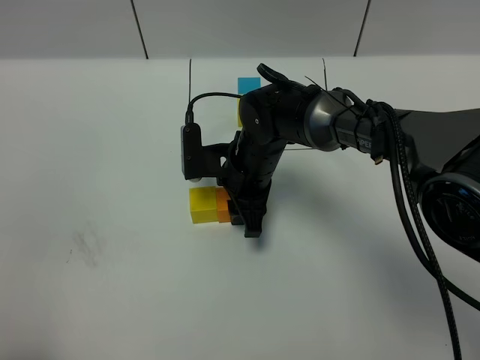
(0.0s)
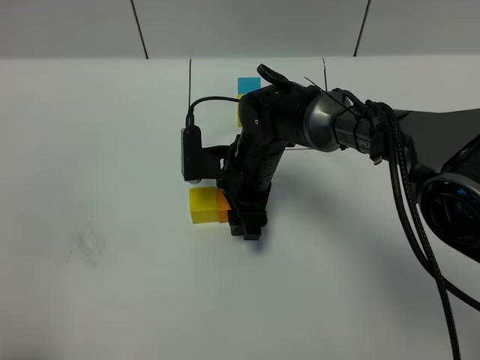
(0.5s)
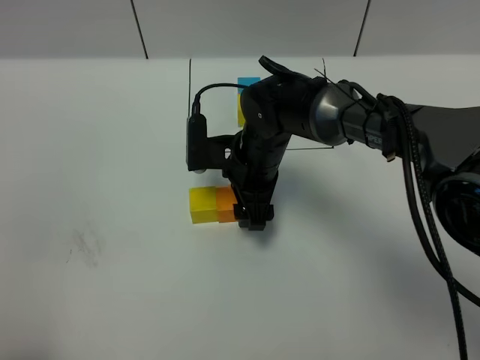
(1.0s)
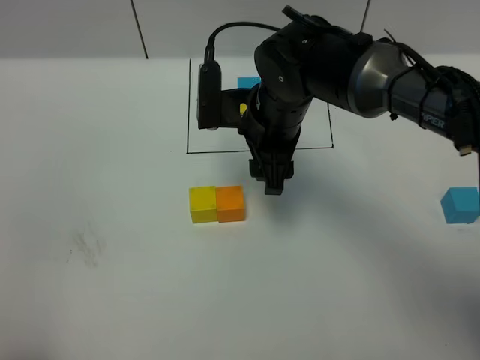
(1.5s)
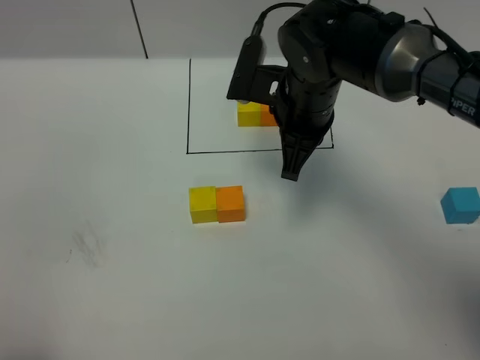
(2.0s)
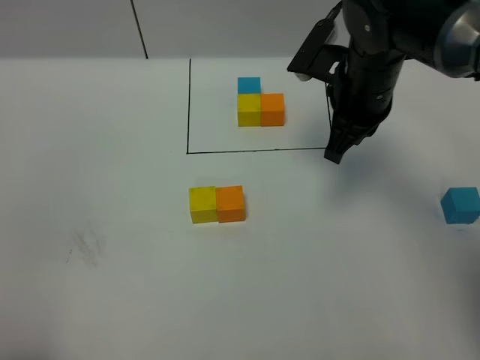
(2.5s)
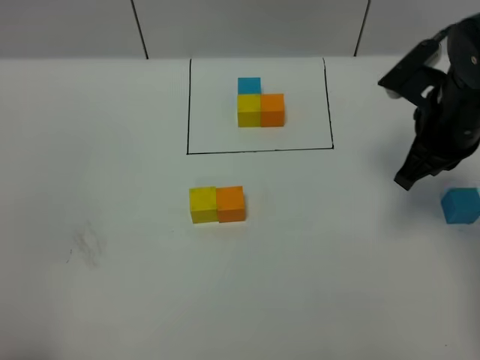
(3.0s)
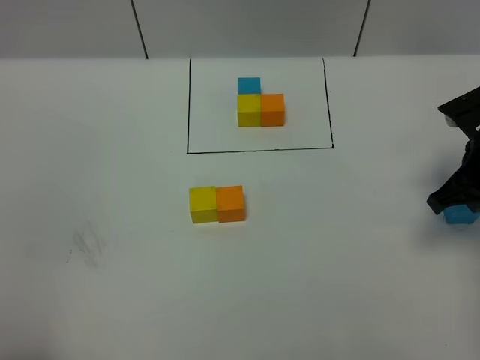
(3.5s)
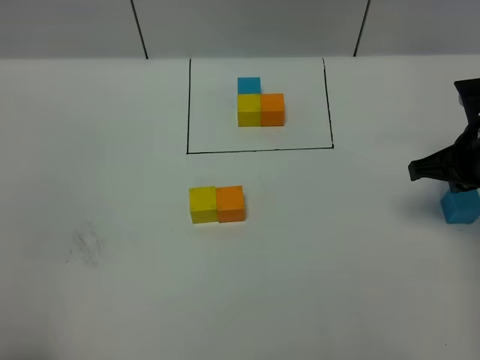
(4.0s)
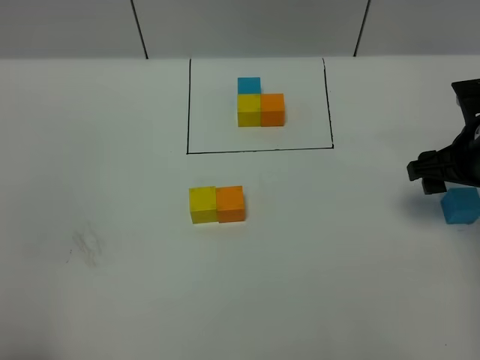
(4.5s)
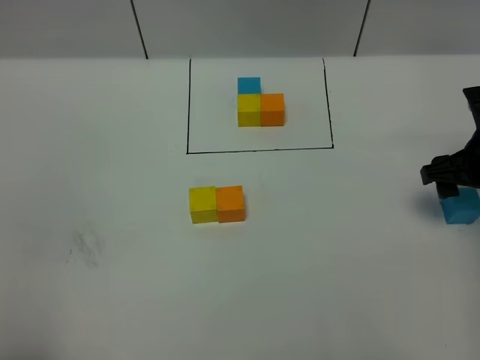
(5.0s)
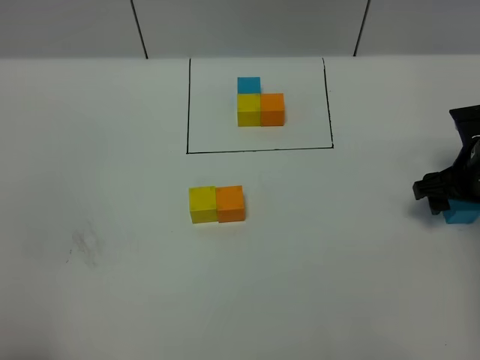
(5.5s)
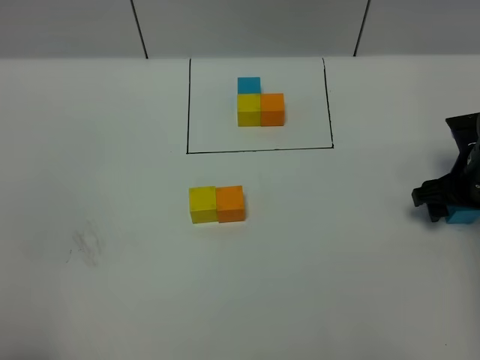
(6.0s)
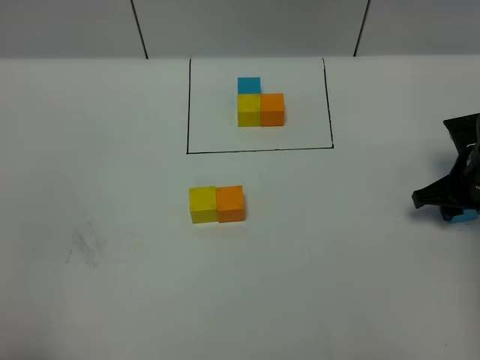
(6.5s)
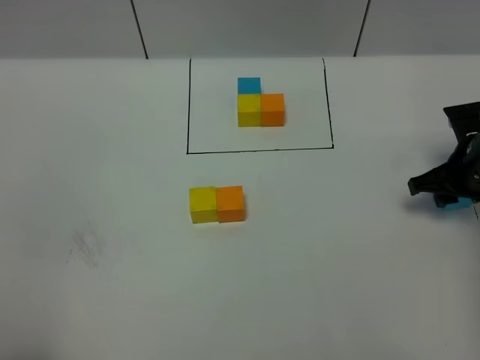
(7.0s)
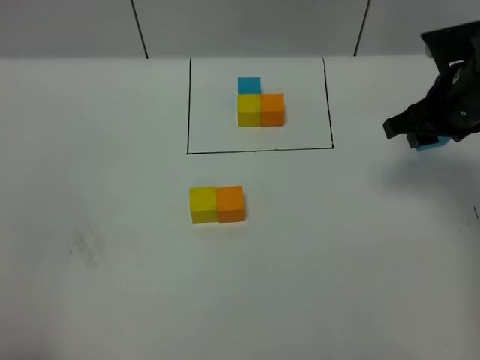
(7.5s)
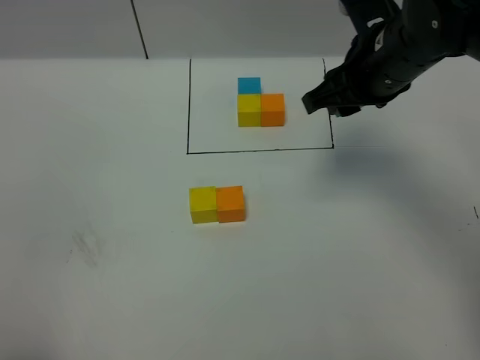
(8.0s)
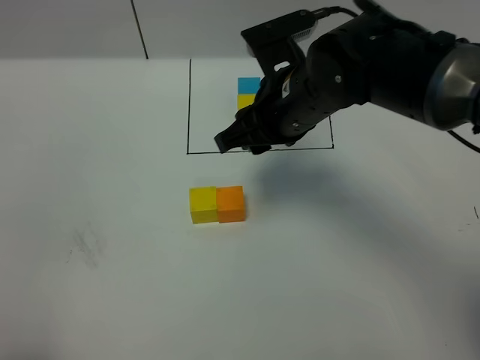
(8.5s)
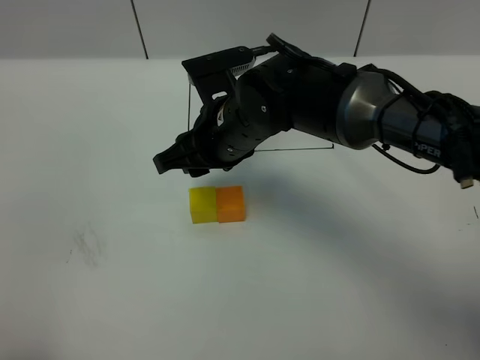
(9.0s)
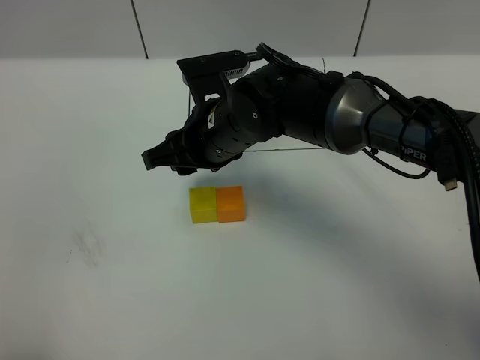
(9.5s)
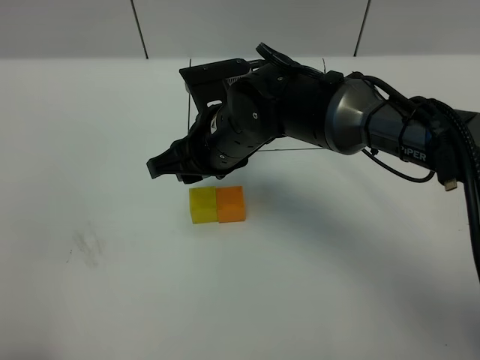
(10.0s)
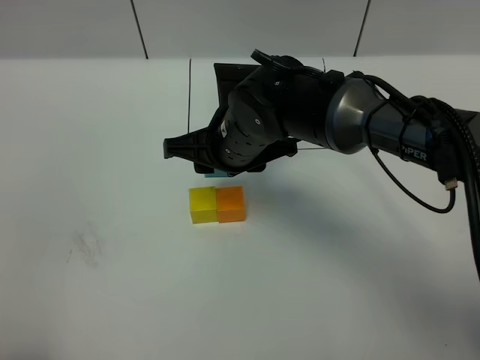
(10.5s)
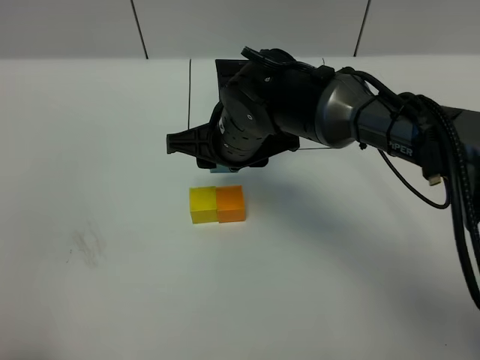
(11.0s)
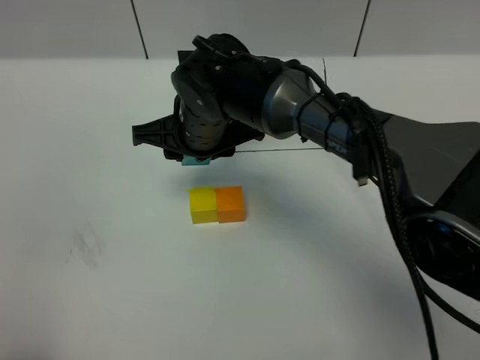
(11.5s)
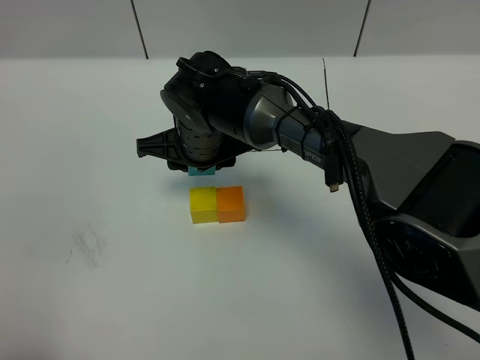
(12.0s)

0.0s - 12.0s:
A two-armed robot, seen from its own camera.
Task of the whole recording: According to the building block template in front, assemble the scattered blocks together.
0.0s - 2.0s: The right gripper shifts roughly 15 cm upward and to the right, and closes.
2.0s - 4.0s: The right gripper goes approximately 20 cm to the right.
4.0s - 6.0s: The right gripper heads downward, covering some 5 cm, and opens its fingers.
6.0s - 8.0s: The right gripper heads upward and to the left, covering some 25 cm, and closes its fingers.
8.0s - 10.0s: The right gripper moves to the left and downward, roughly 20 cm.
10.0s - 12.0s: The right gripper ends up about 5 cm from where it was.

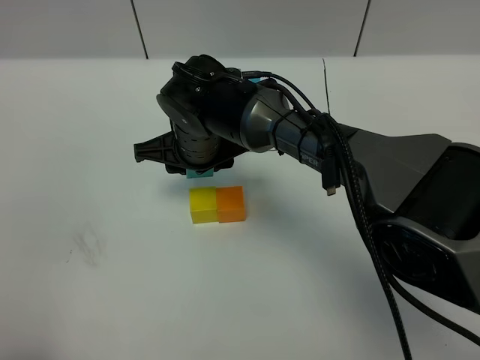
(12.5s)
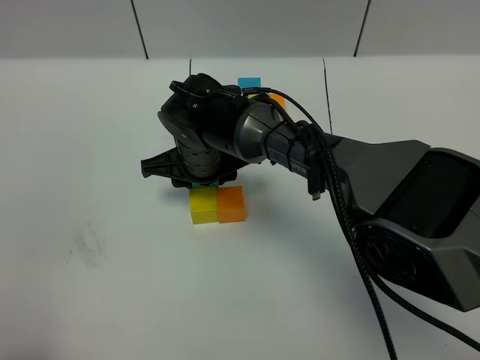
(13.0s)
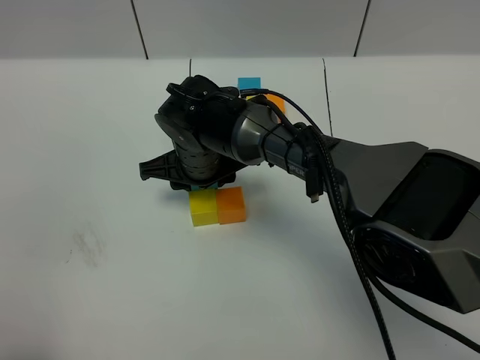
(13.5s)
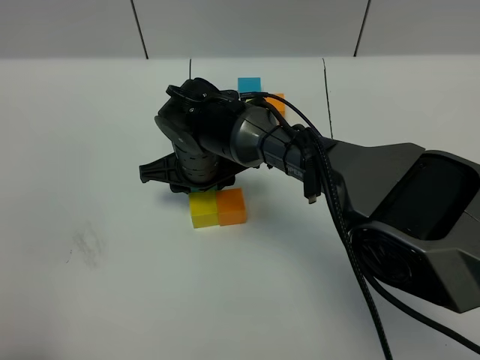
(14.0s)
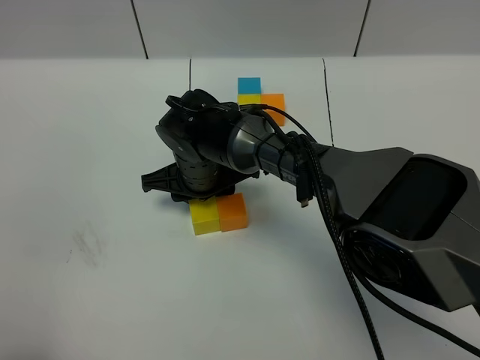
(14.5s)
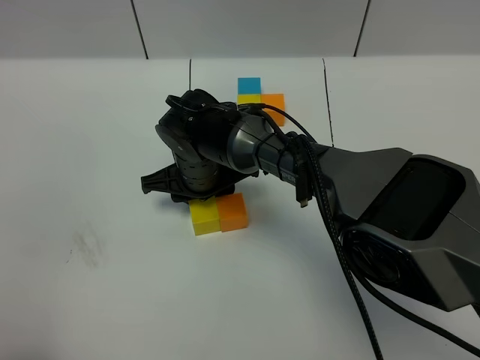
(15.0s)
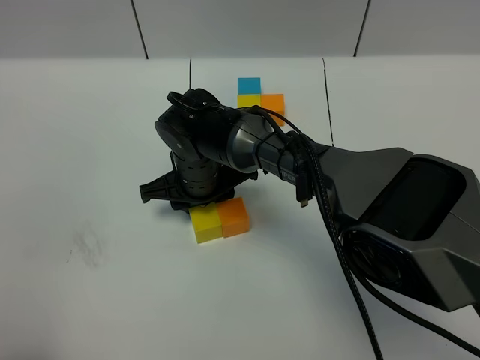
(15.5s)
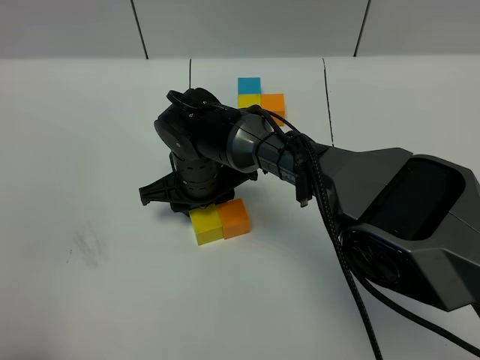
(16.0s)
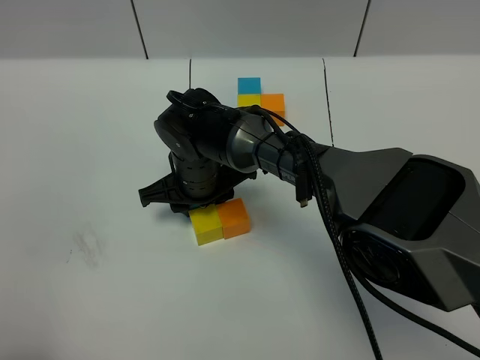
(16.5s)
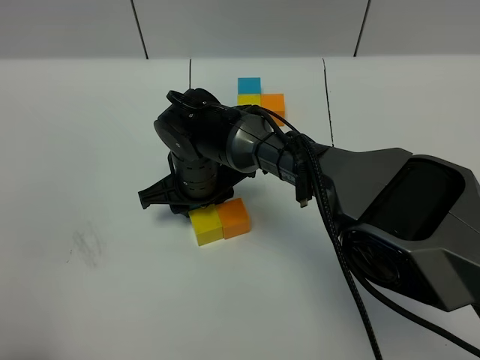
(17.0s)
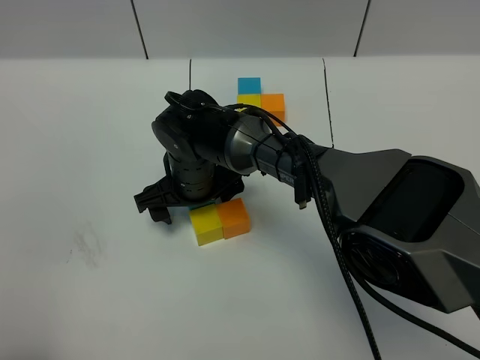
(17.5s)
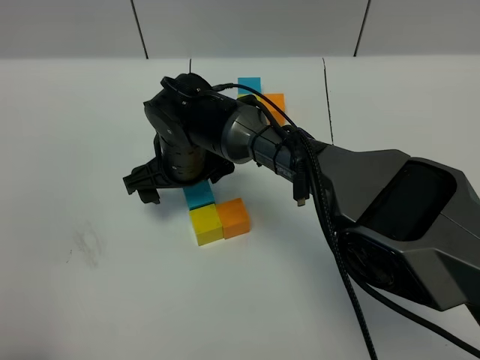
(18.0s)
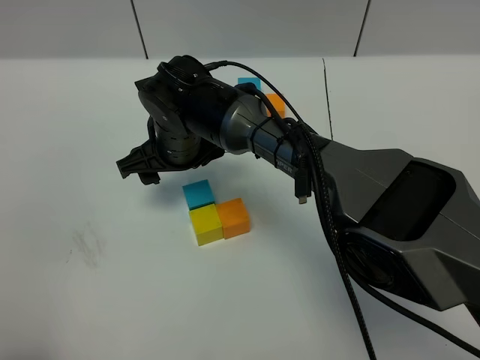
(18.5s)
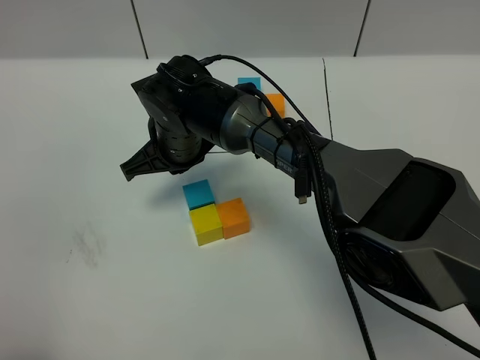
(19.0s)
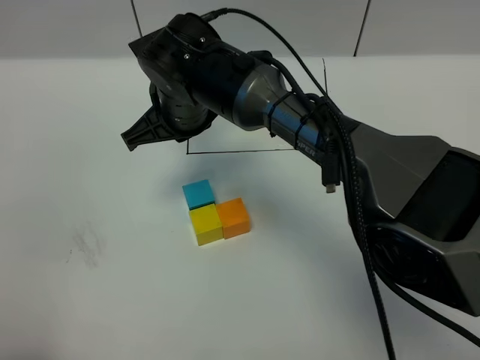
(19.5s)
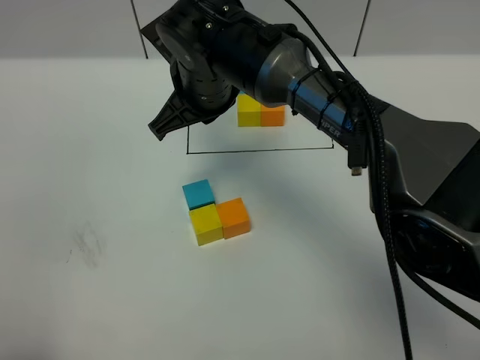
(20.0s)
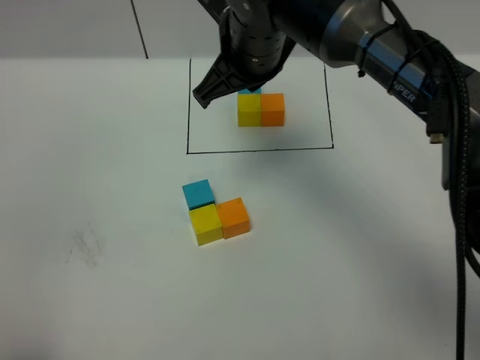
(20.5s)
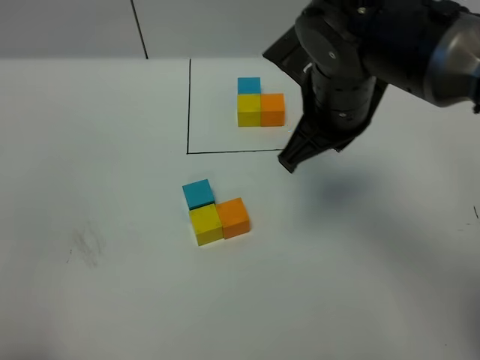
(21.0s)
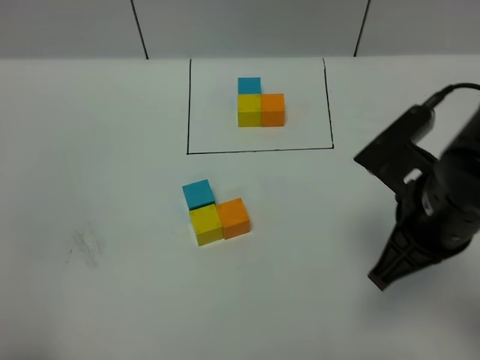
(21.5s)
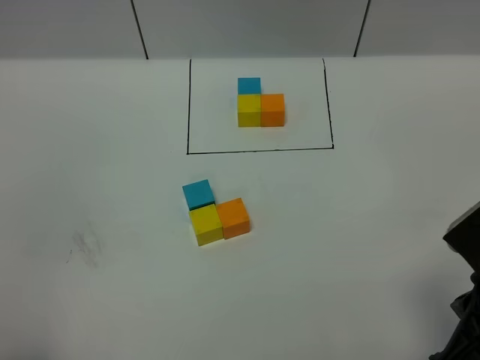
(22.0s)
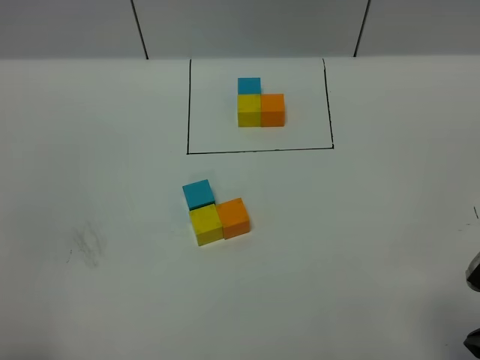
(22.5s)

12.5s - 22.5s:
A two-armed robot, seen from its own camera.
Task of the whole recording: According to the building block template in front, assemble the scattered blocks together.
Step, 12.5s - 17.5s: Put the blue cube on the behind of the yellow cube.
12.5s - 14.5s: The right gripper is displaced downward by about 5 cm.
14.5s - 16.5s: There are only small adjustments of the grippers.
16.5s - 18.5s: The right gripper moves approximately 5 cm.
18.5s - 20.5s: The right gripper shifts approximately 15 cm upward and to the right, and closes.
20.5s - 22.5s: The right gripper shifts approximately 35 cm backward and to the right.

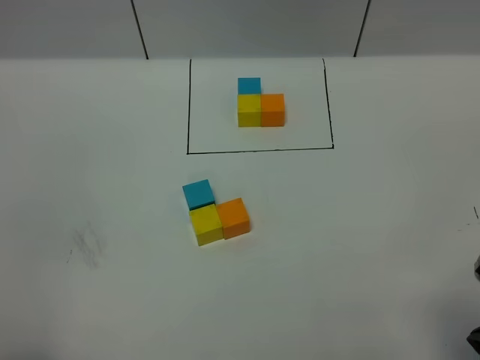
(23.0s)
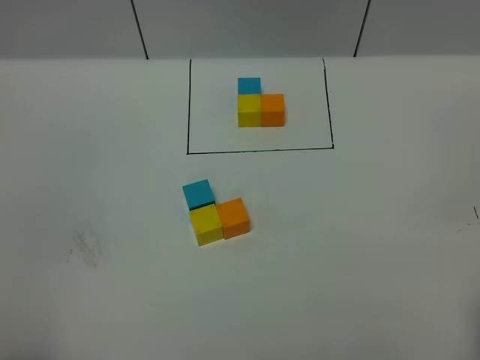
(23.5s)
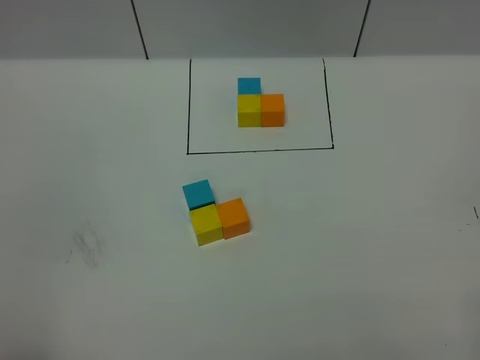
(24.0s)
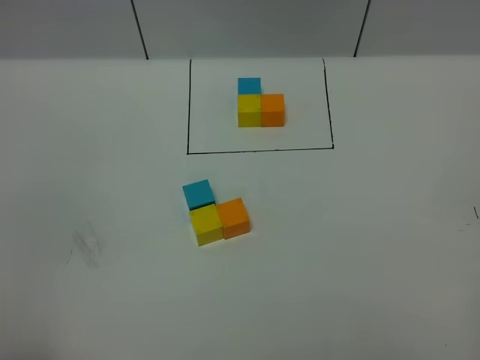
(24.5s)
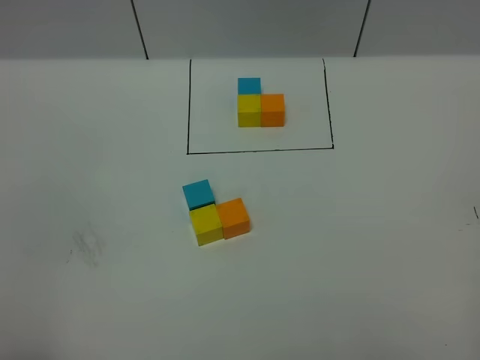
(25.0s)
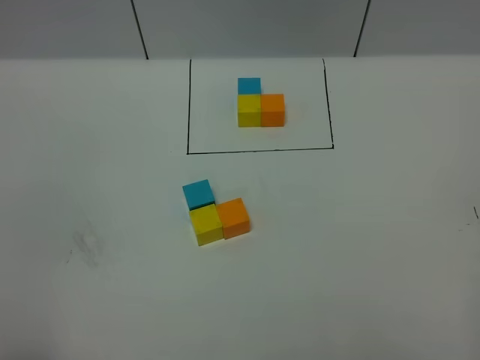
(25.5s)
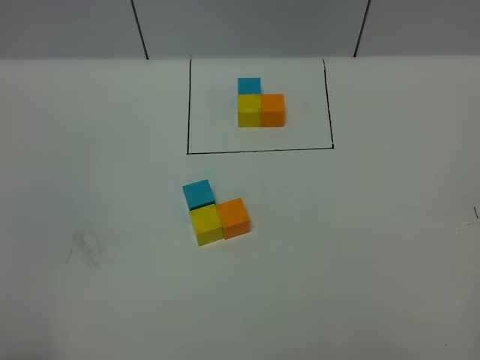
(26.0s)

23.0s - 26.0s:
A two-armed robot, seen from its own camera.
Task of the whole recording: According to the building block template in front, assemble the scattered blocks together.
23.0s - 24.5s: The right gripper shifts approximately 10 cm backward and to the right.
24.5s - 26.0s: The two grippers keep their place.
